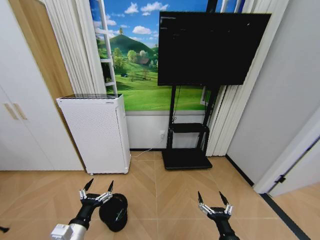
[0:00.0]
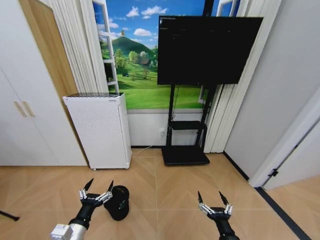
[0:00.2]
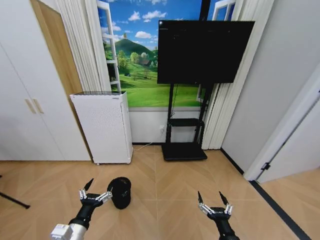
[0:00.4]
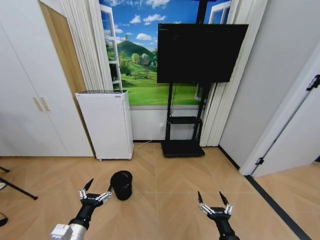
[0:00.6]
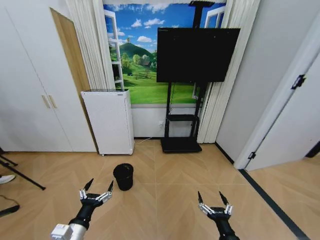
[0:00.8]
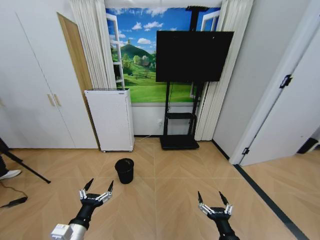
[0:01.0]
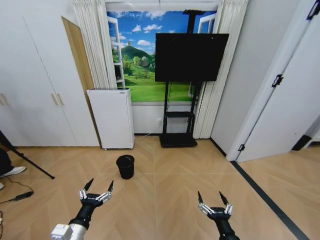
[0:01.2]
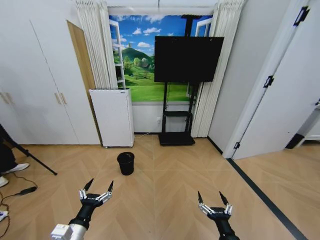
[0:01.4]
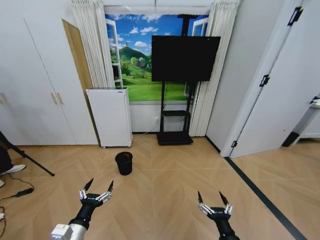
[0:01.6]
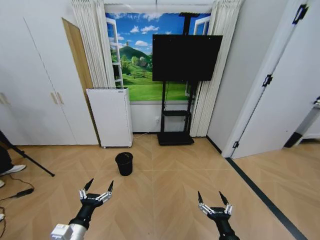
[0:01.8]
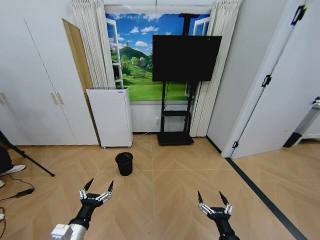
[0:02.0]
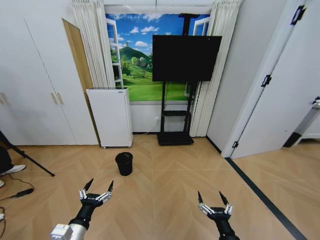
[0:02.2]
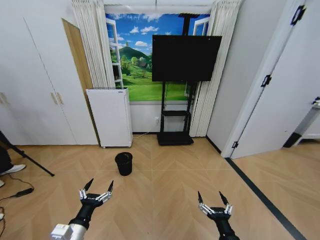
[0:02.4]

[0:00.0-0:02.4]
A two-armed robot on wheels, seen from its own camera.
Task of the whole recording: Pick up the trash bin and place the garbage on the floor into it.
0:01.2 to 0:02.4: Both grippers stay put.
